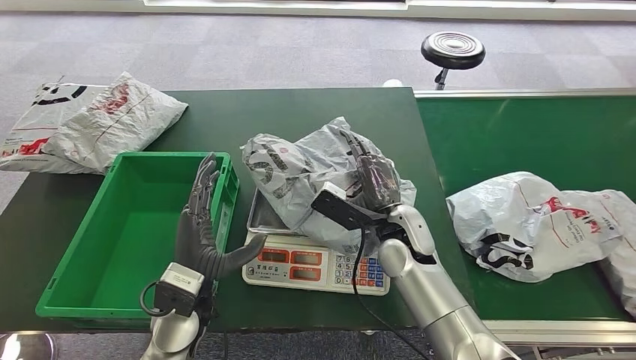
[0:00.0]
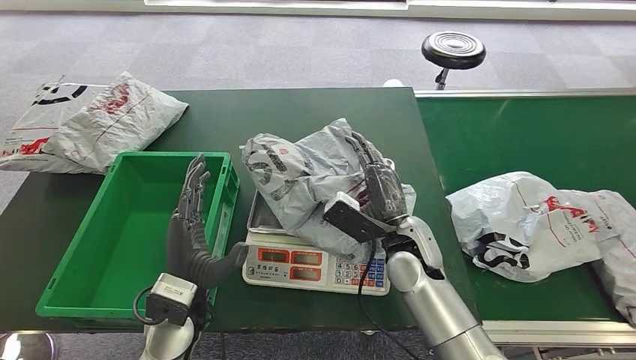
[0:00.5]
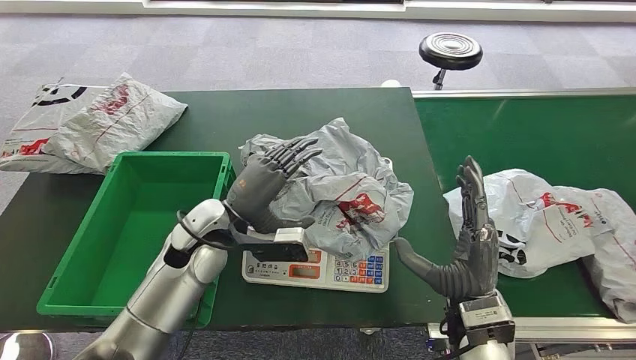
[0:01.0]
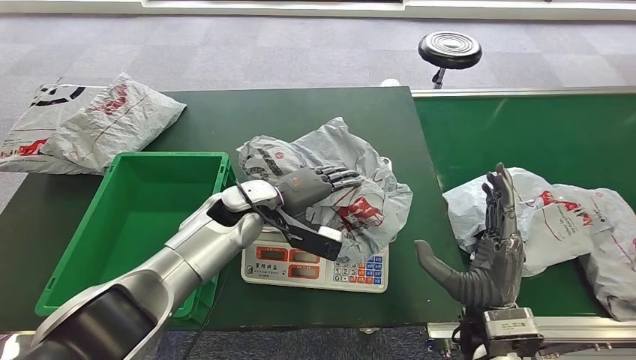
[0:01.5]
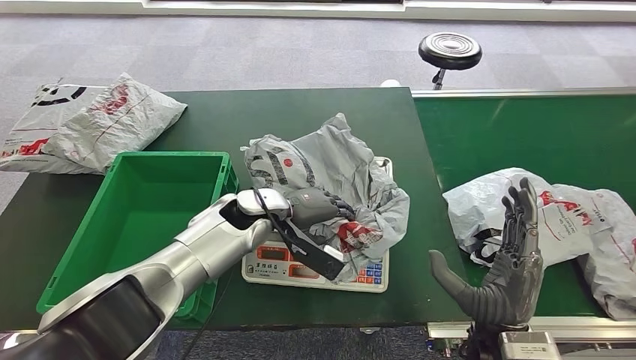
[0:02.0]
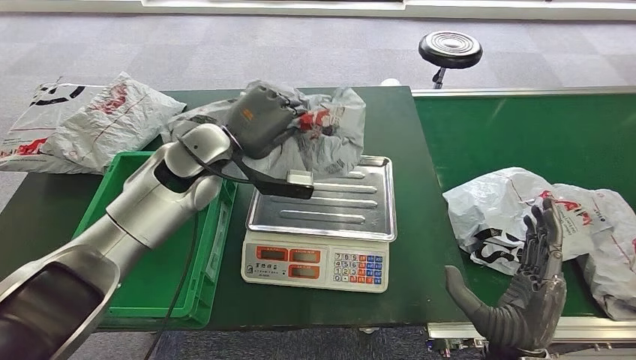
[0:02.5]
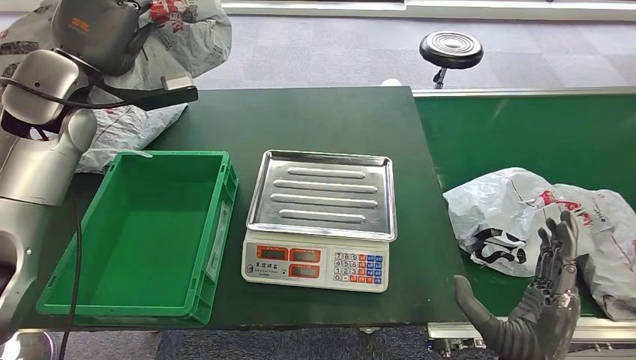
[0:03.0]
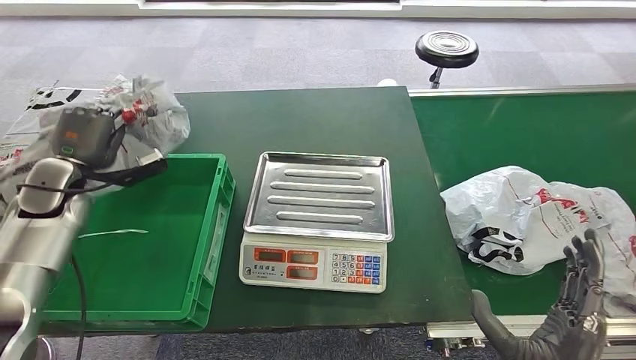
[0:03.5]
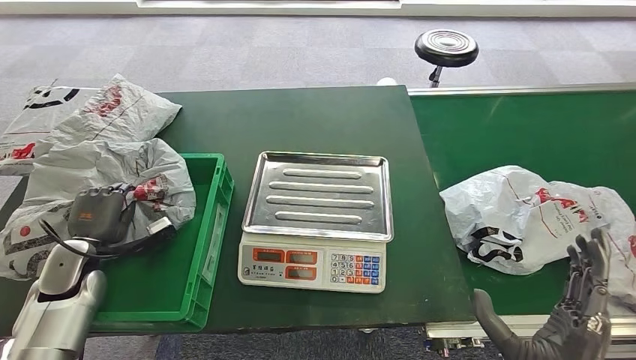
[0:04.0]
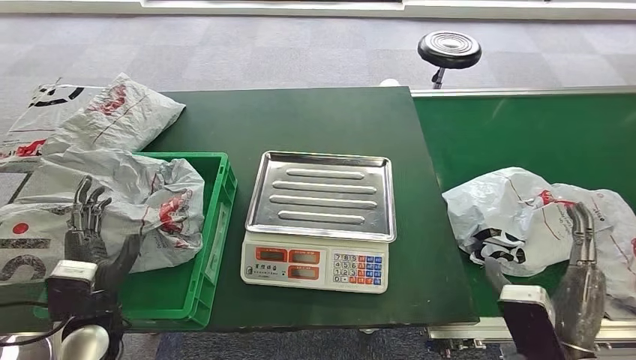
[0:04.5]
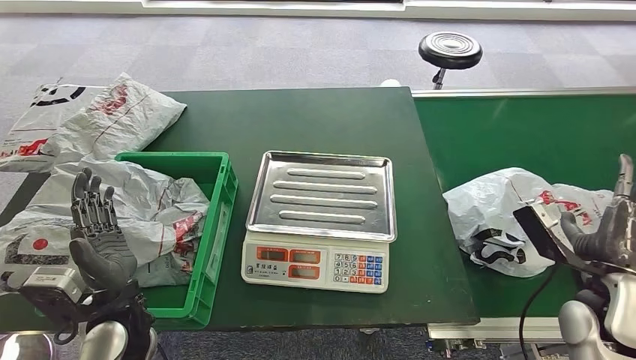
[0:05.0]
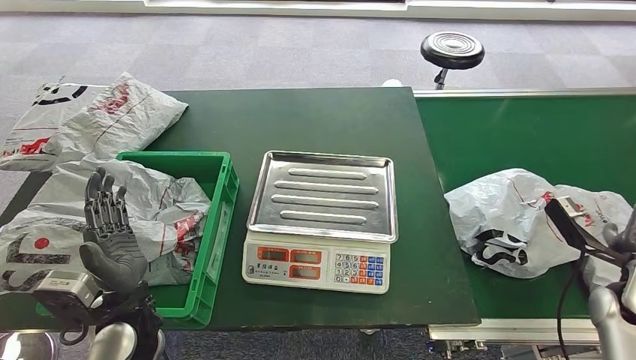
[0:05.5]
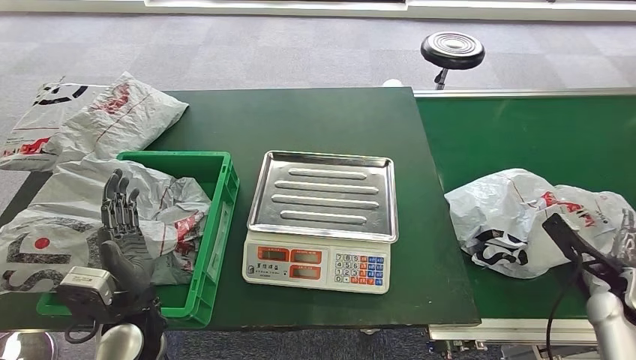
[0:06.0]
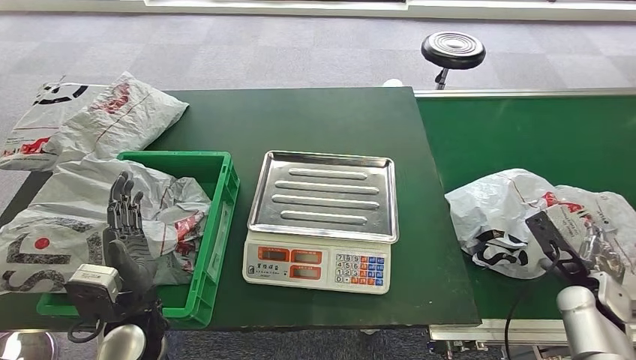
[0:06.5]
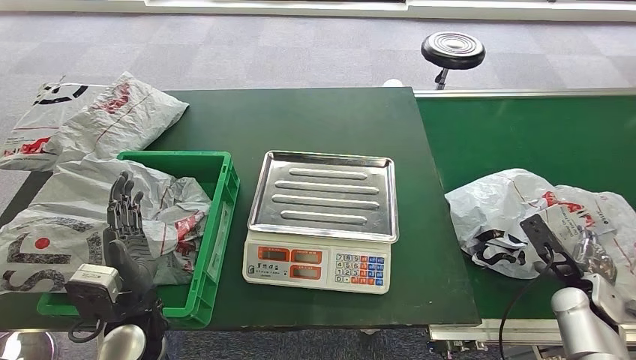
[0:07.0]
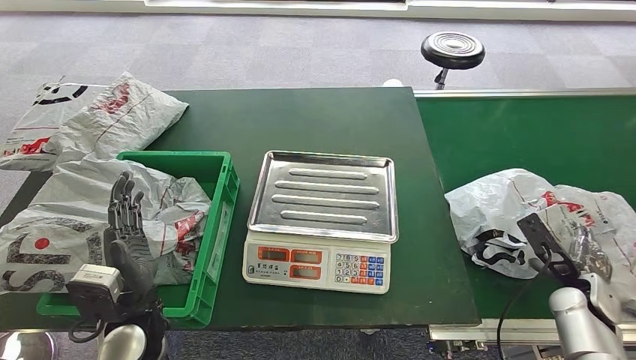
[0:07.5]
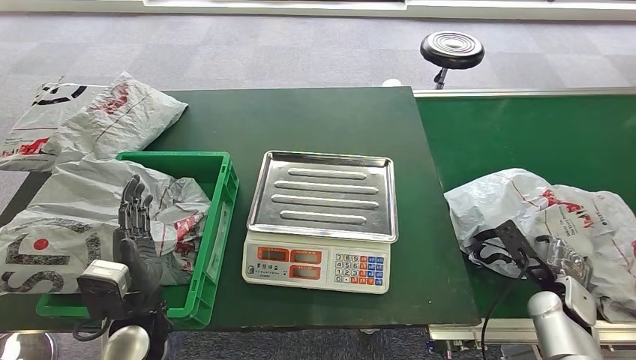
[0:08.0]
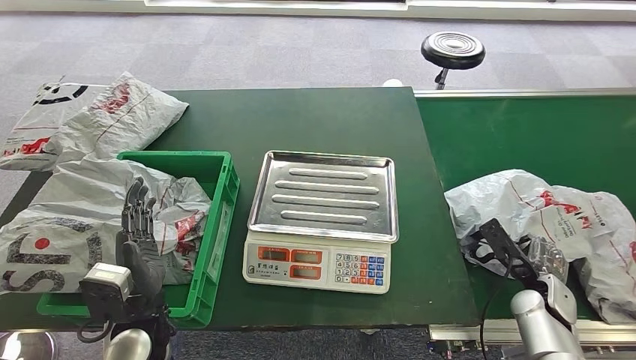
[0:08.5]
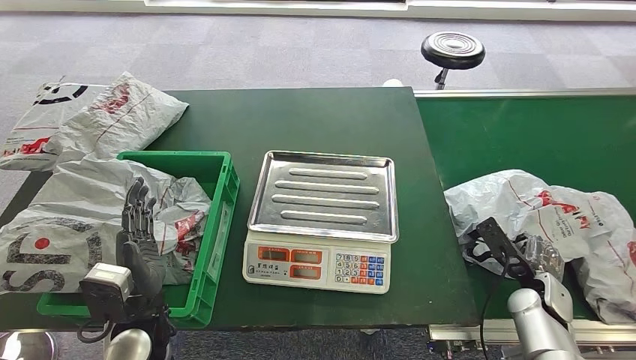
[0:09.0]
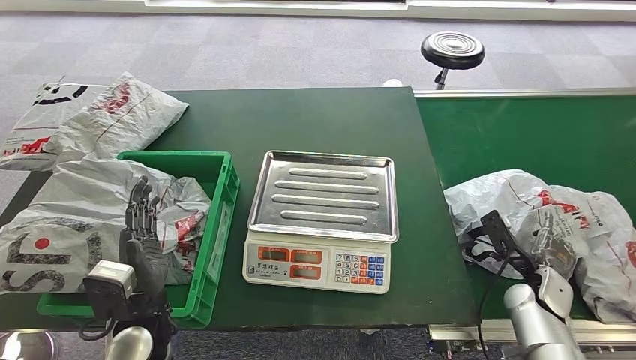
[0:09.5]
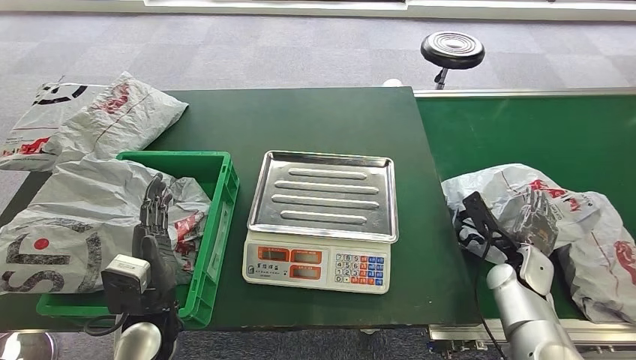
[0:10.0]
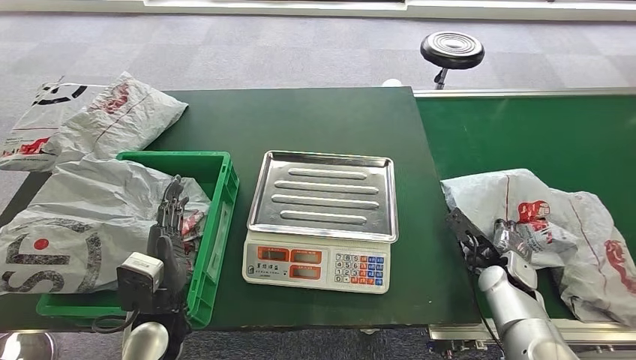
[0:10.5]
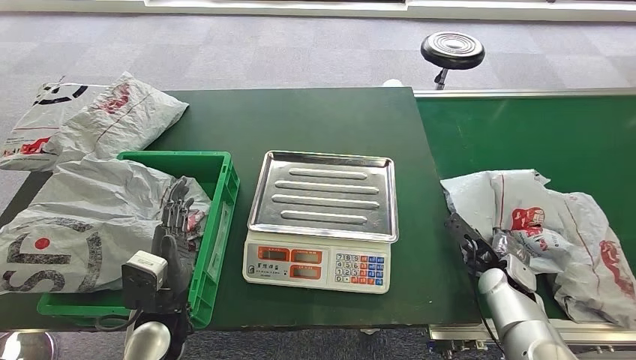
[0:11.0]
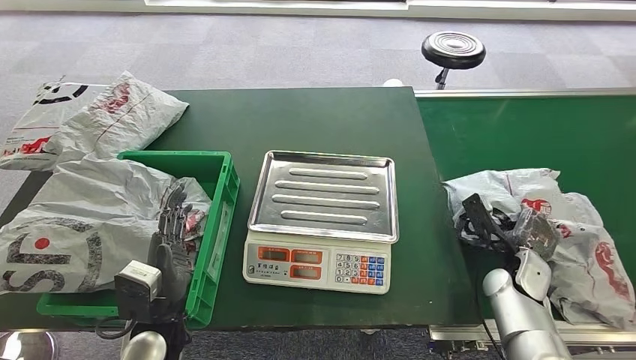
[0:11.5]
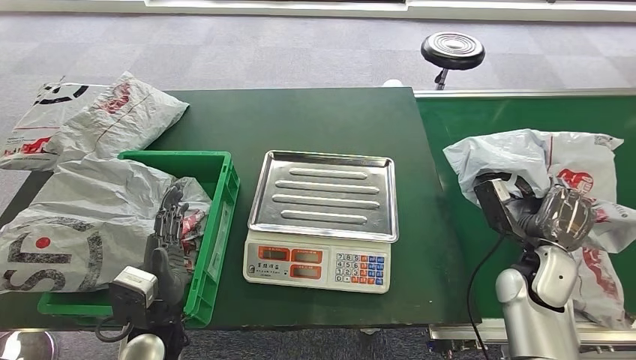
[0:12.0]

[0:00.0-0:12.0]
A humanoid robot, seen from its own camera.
Step, 0:02.5 to 0:03.0: Pick up the parcel from the inbound machine.
Step, 0:03.5 to 0:05.0: Put the parcel inside the courier box.
0:06.0 to 0:08.0: The right hand travels to the left and downward by some 10 cm.
0:08.0 to 0:10.0: The right hand is displaced to the left by roughly 5 cm.
0:10.0 to 0:12.0: The right hand moves upward, some 5 cm.

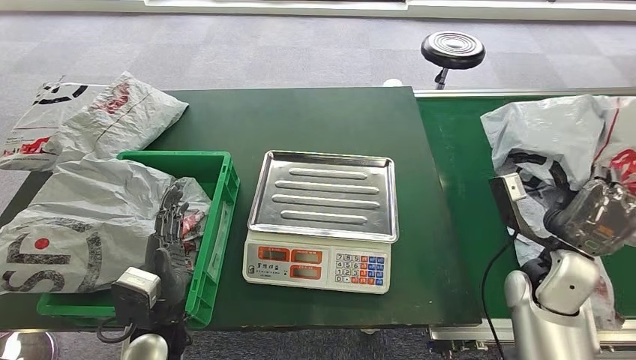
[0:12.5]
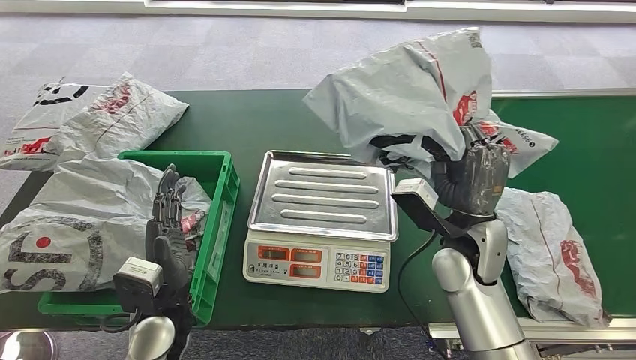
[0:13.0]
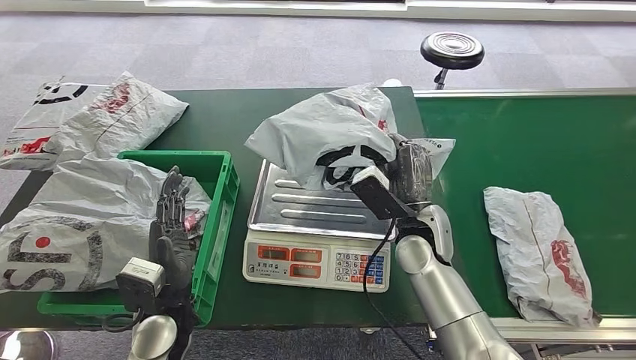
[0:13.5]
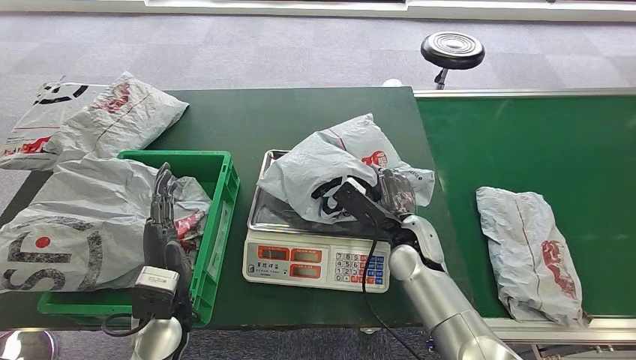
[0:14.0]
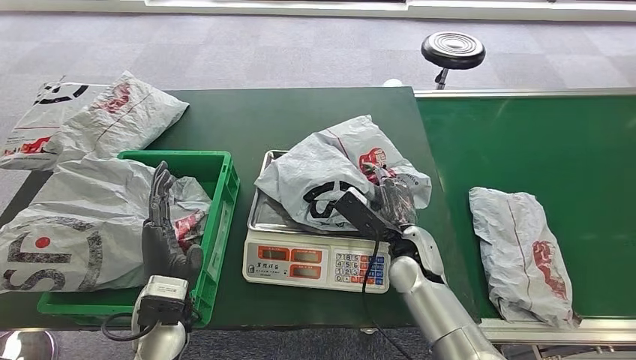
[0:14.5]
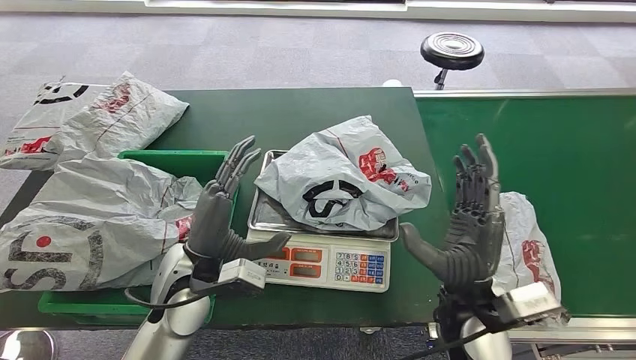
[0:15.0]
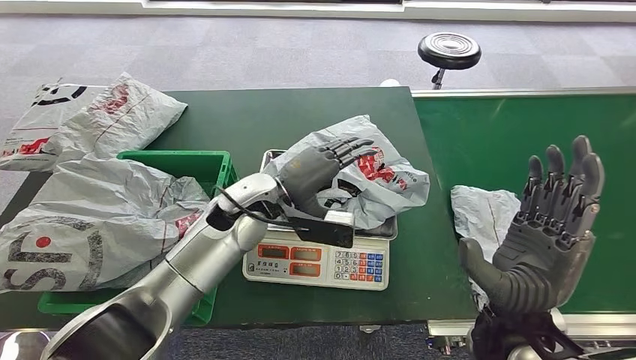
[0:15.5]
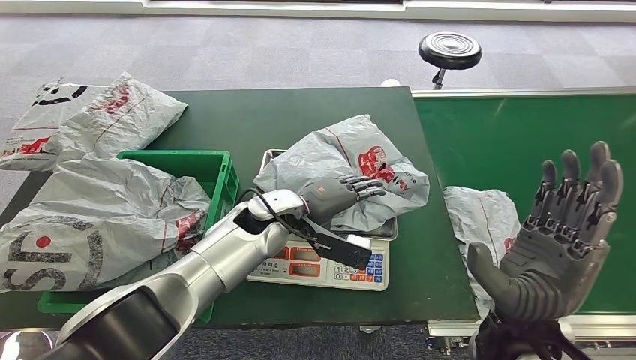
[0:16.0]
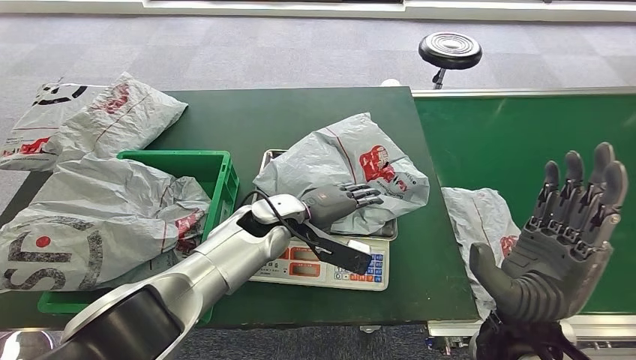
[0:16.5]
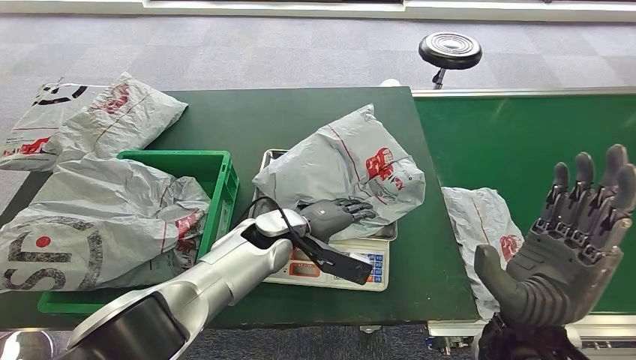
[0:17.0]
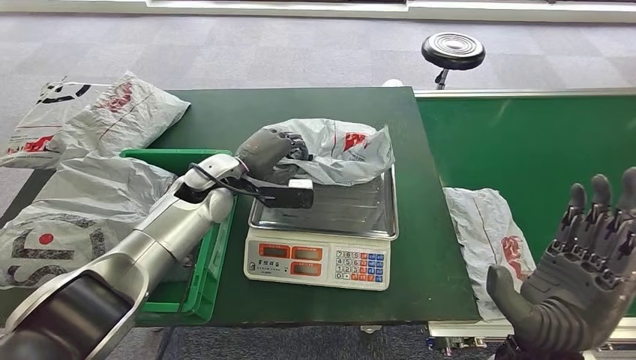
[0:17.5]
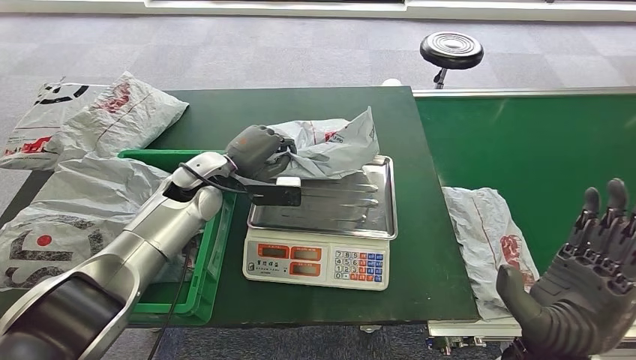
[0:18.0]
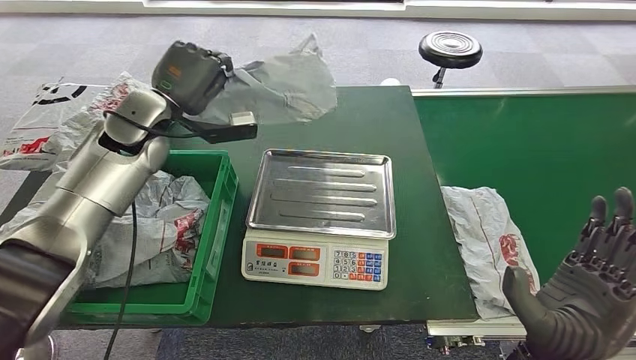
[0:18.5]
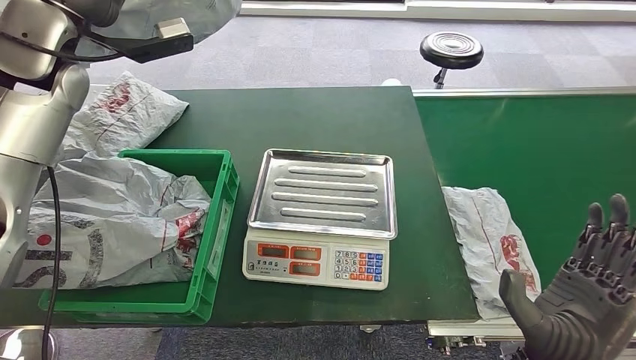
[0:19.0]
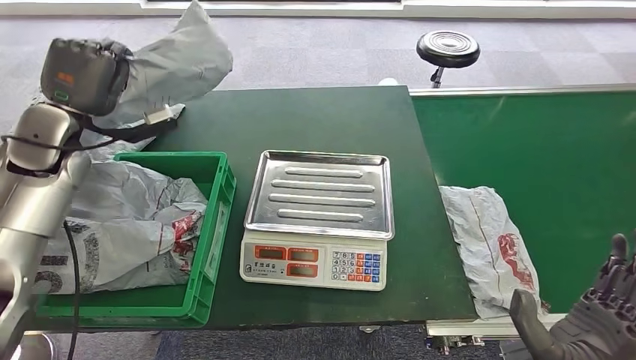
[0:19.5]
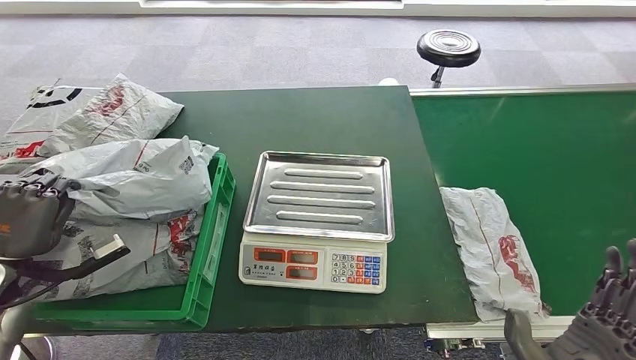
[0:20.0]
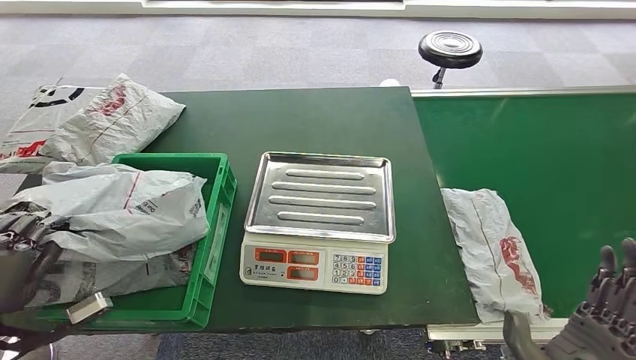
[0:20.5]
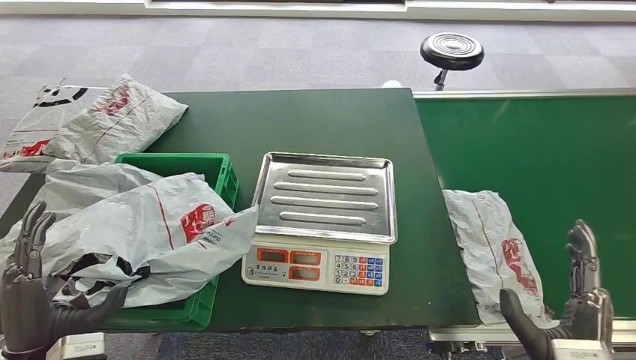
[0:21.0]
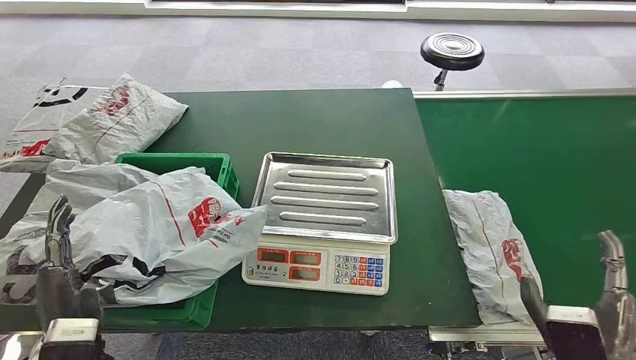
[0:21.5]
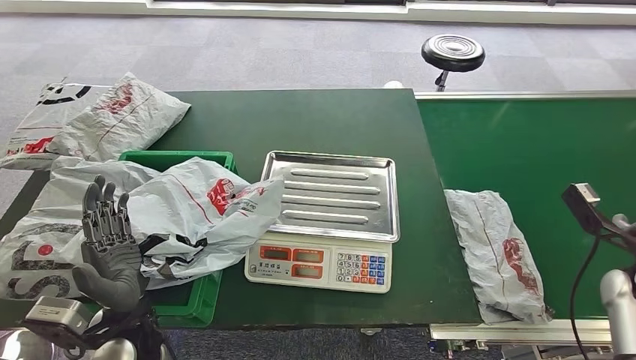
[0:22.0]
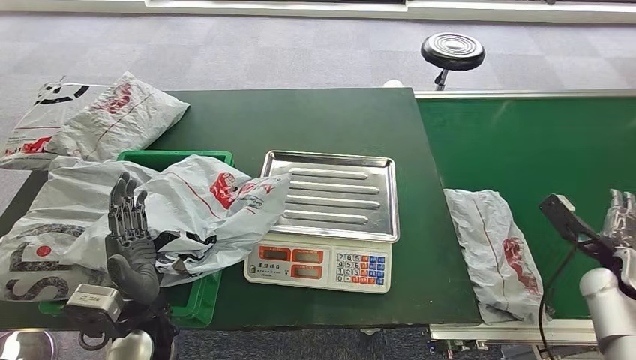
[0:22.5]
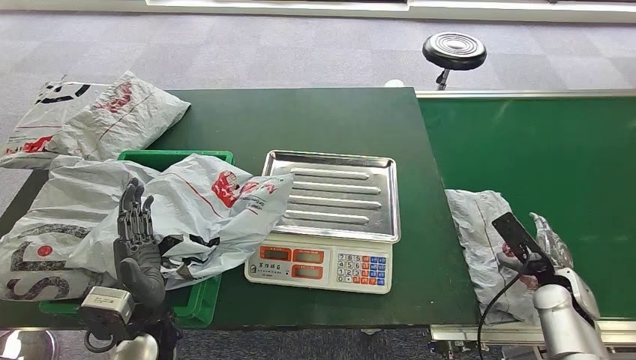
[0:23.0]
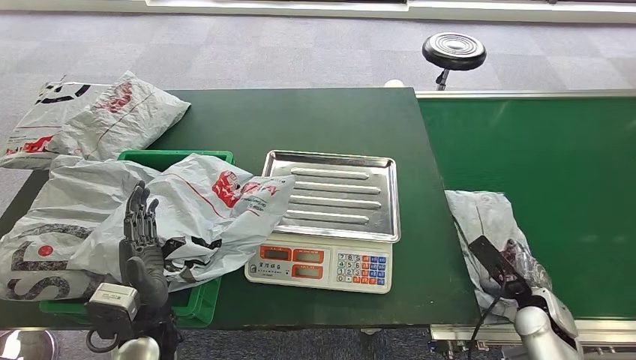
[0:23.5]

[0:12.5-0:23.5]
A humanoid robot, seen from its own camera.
Step, 0:13.0 to 0:15.0: Place the parcel onto the inbound machine.
Step, 0:16.5 to 0:18.5: Pick up the parcel from the inbound machine.
Step, 0:19.0 to 0:21.5: Place the parcel into the delivery box.
